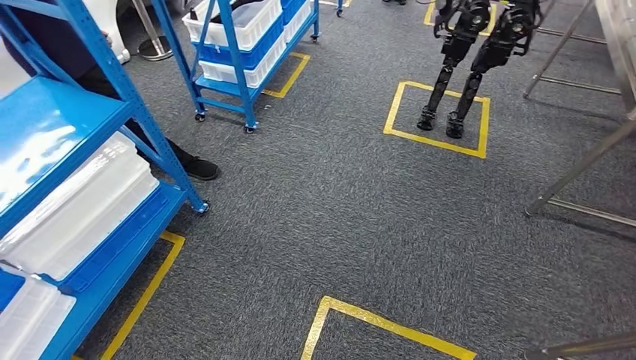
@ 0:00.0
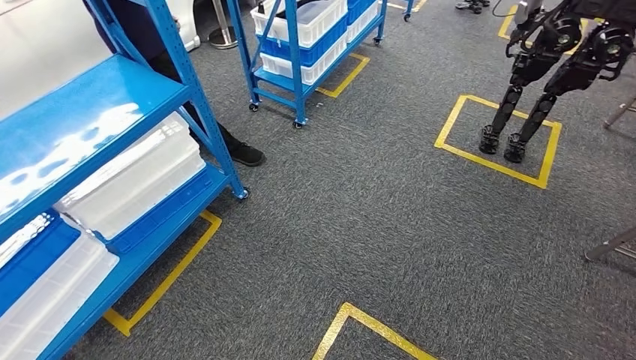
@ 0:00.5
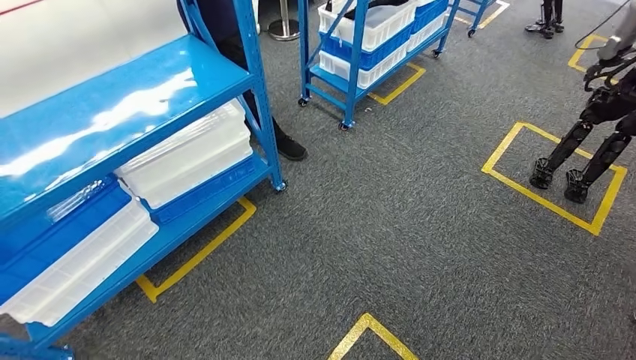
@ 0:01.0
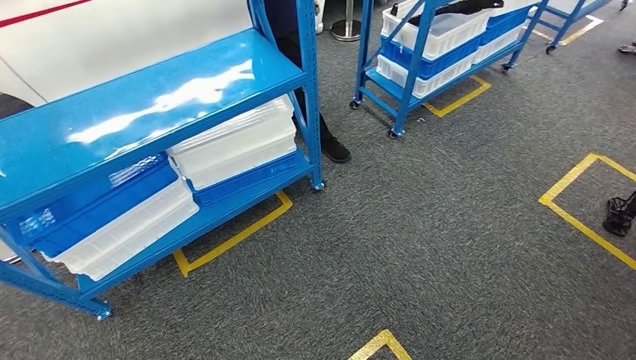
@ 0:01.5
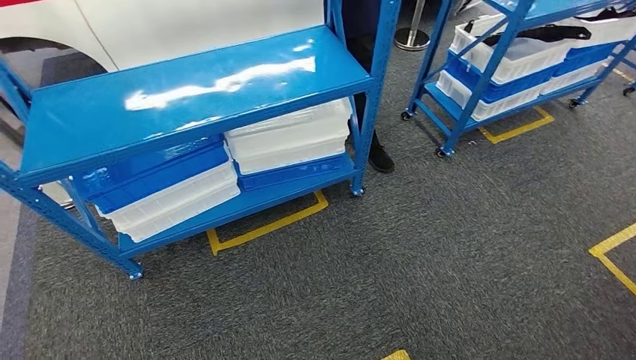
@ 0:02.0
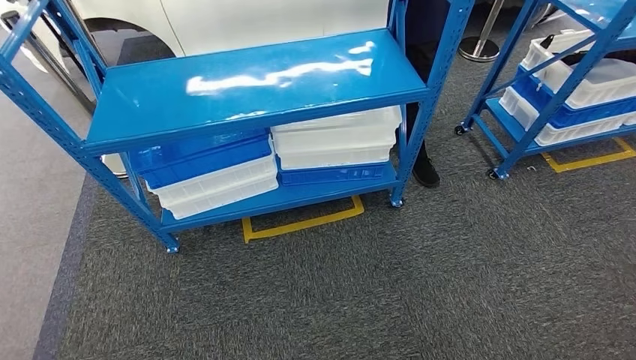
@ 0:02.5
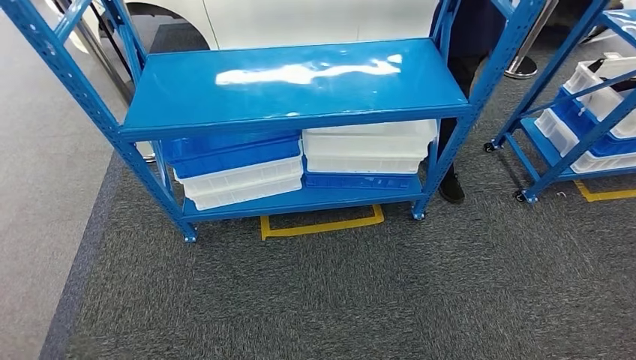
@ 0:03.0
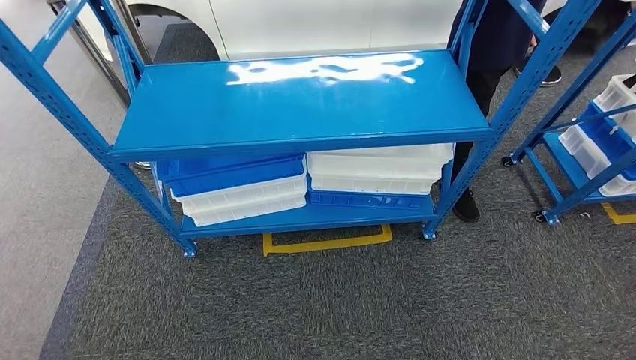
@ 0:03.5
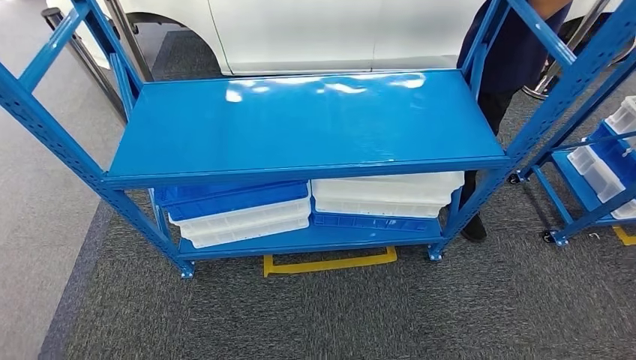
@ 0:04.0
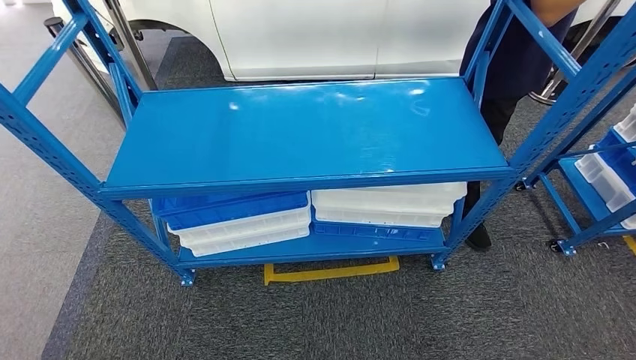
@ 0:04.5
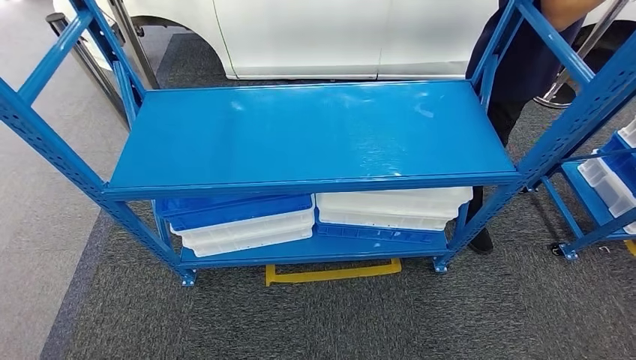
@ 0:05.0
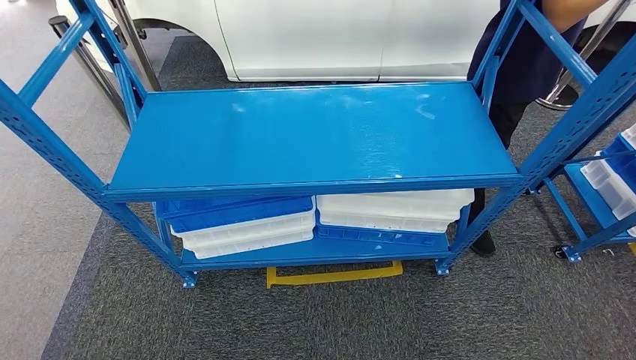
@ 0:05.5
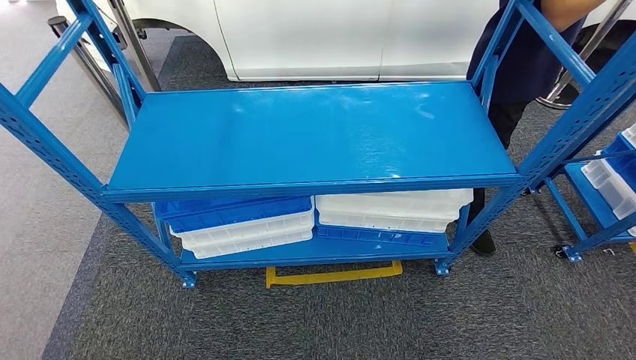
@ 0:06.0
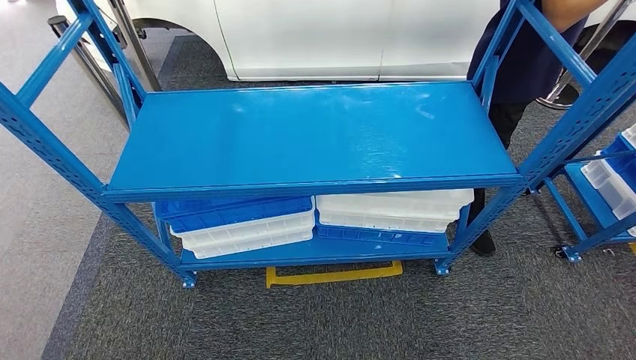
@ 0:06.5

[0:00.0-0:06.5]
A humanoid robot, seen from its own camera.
Step, 0:00.0 to 0:06.5: Move to the initial position of the shelf.
0:04.5 to 0:06.5: The hands make only small movements.
